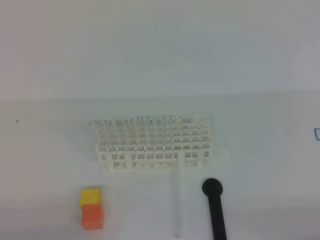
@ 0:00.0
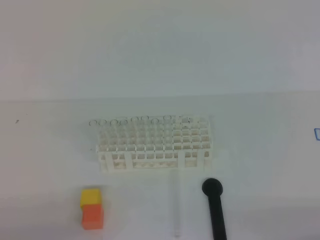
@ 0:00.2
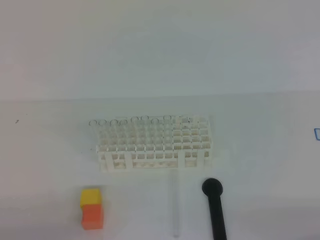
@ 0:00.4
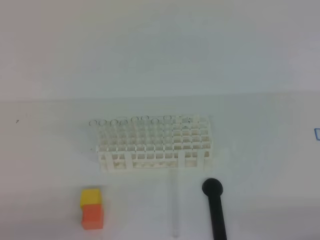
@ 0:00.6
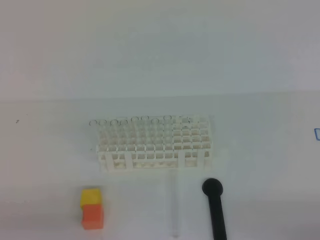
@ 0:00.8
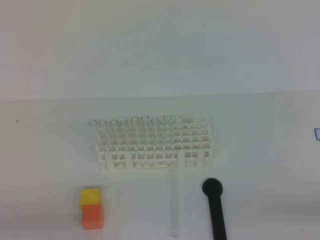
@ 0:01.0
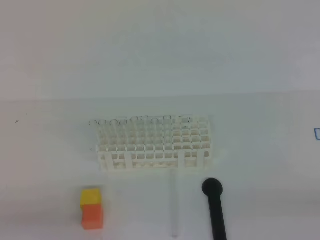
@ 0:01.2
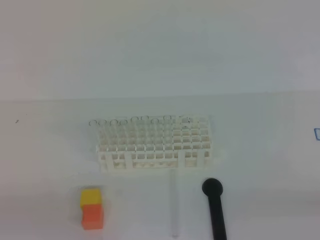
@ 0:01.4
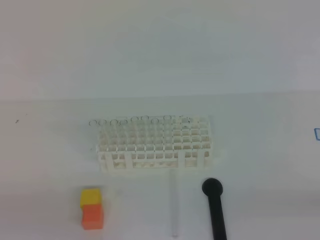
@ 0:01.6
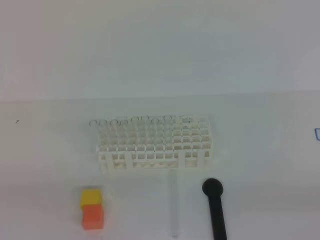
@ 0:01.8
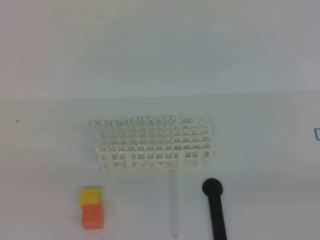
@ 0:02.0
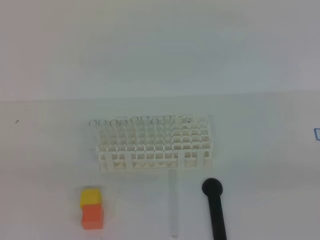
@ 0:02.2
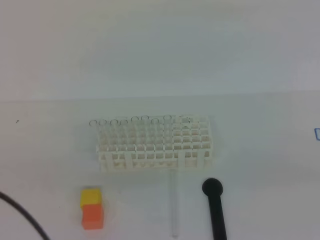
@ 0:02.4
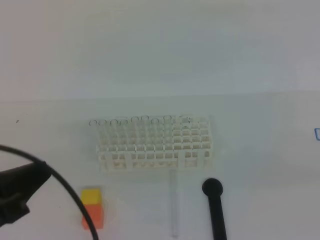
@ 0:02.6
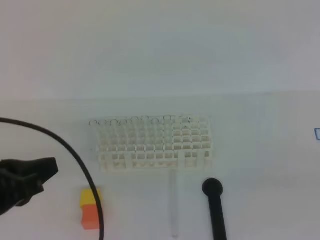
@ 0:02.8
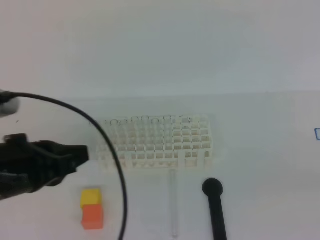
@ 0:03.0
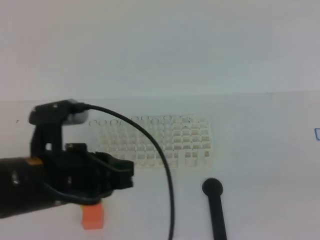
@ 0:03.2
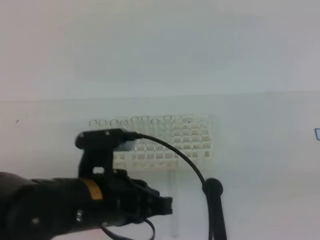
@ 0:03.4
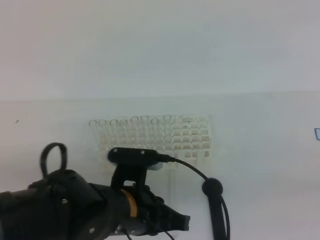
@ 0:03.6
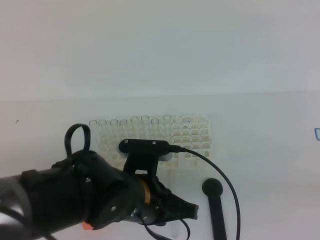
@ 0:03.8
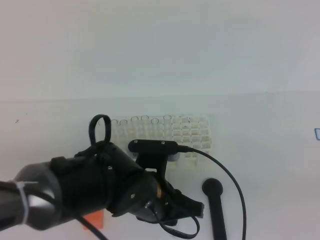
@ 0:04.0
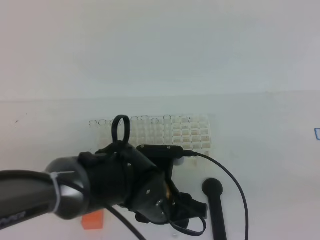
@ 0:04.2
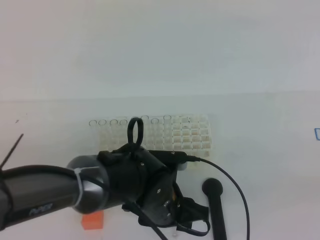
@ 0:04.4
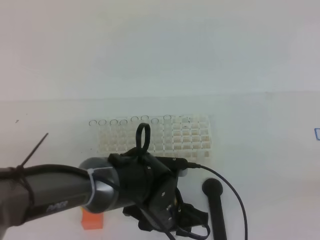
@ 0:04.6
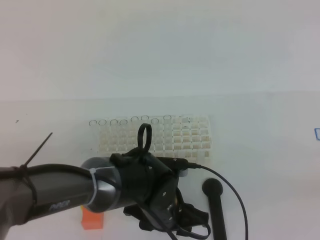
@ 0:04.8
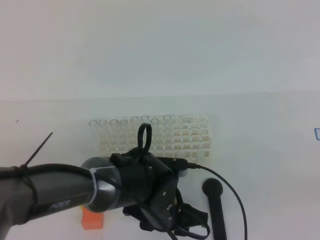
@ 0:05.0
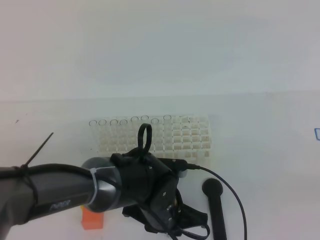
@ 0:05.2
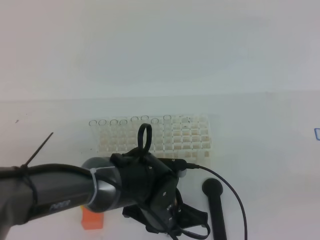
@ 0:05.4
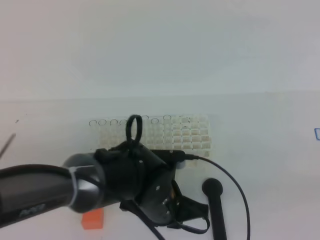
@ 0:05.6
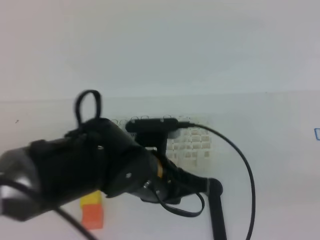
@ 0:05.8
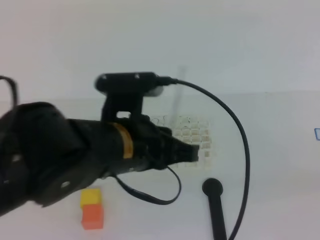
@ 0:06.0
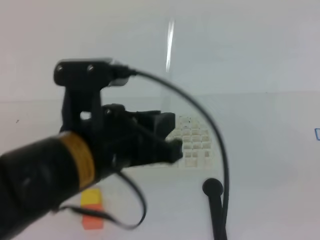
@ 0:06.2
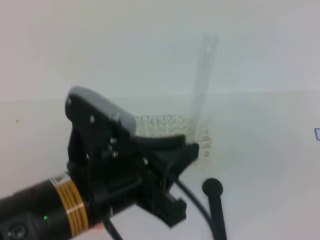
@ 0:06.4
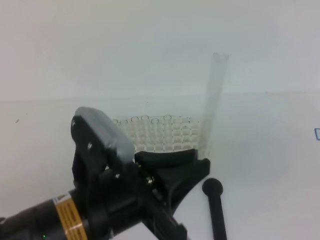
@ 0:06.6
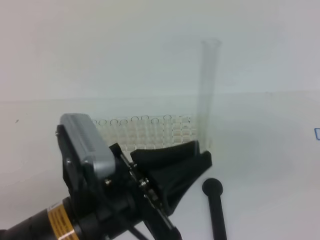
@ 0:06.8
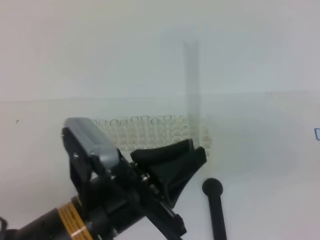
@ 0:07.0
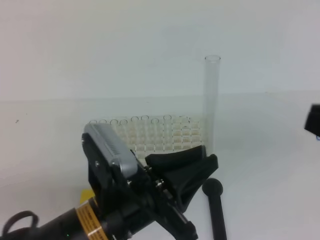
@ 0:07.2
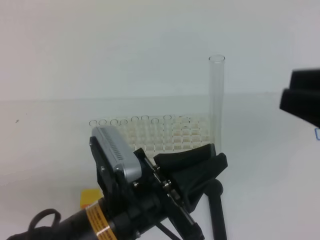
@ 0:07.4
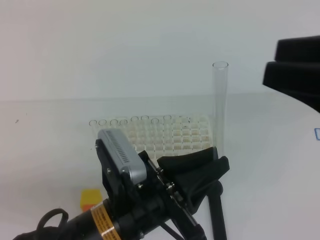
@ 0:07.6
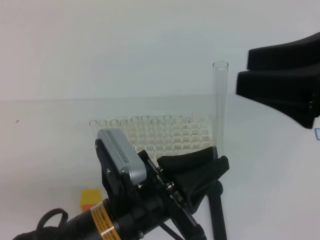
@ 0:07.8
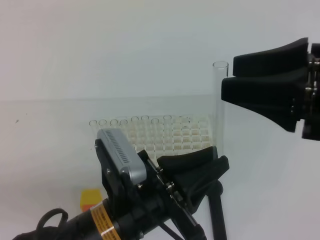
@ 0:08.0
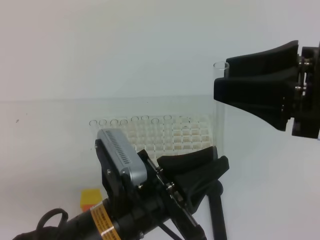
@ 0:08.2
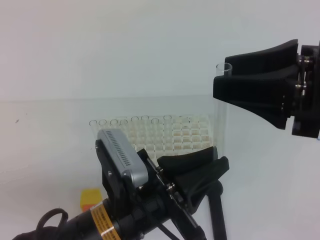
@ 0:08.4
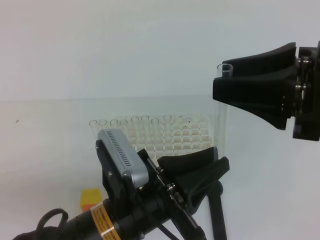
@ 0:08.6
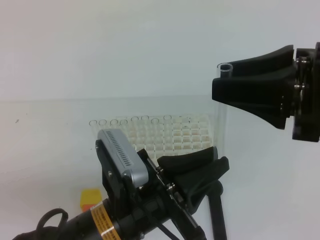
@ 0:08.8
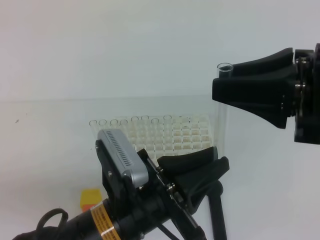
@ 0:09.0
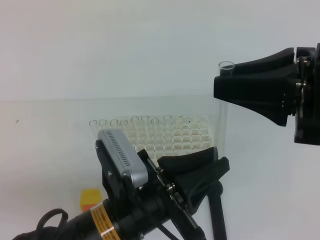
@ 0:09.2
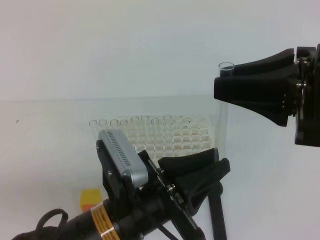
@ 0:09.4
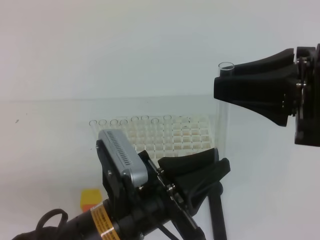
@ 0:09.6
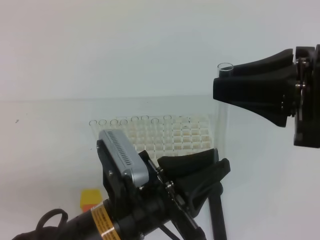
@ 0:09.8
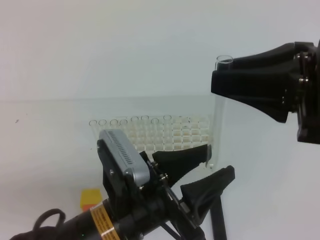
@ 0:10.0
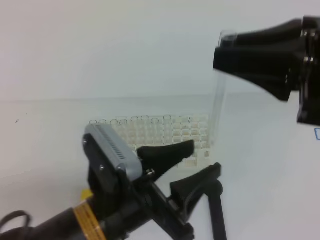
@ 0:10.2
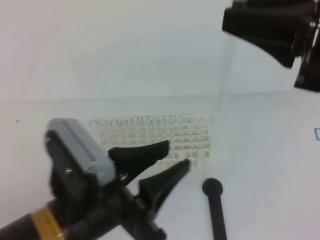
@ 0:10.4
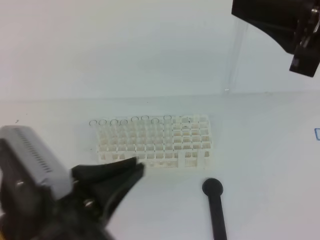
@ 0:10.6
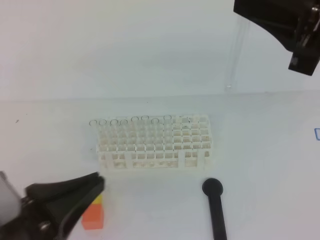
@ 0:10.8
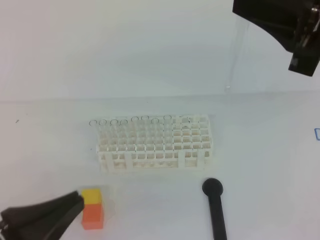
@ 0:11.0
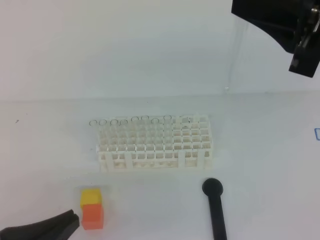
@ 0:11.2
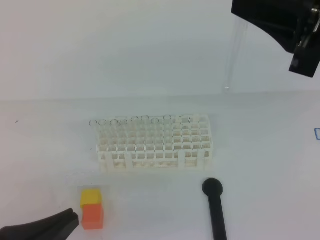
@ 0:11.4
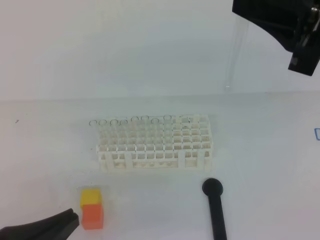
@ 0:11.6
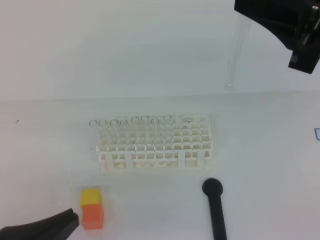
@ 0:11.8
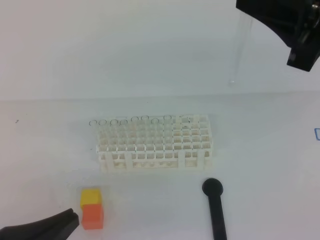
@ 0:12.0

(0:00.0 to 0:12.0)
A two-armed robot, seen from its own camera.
0:01.6 - 0:03.0: The right gripper heads upward, covering approximately 10 cm; the left gripper heads forward, to the right and upward, covering approximately 15 cm.
0:03.0 - 0:04.4: The left gripper is displaced to the right and downward by about 20 cm, and opens up.
0:04.4 - 0:06.0: The left gripper travels upward by about 15 cm, and closes.
0:06.0 - 0:07.6: The left gripper goes some 10 cm backward and downward, while the right gripper heads forward, to the left and upward, covering approximately 15 cm, and opens up.
0:07.6 - 0:09.0: The right gripper ends up about 5 cm from where it was, and closes up.
0:09.0 - 0:10.4: The left gripper shifts by some 5 cm, and opens.
0:10.4 - 0:12.0: The left gripper moves to the left and backward, about 15 cm, and closes up.

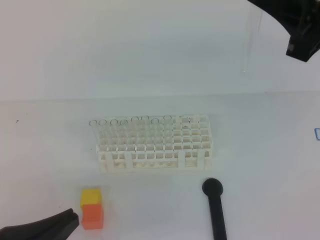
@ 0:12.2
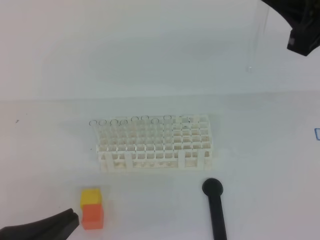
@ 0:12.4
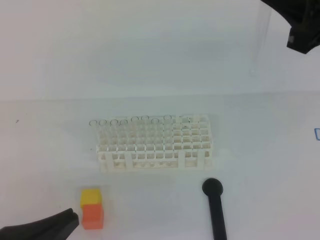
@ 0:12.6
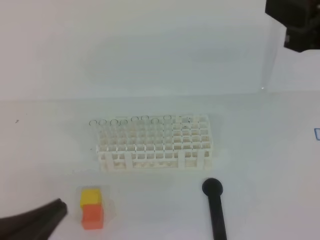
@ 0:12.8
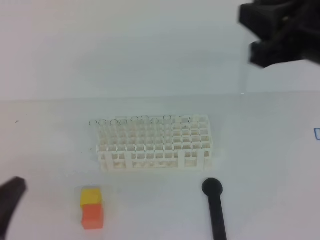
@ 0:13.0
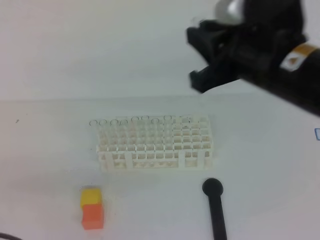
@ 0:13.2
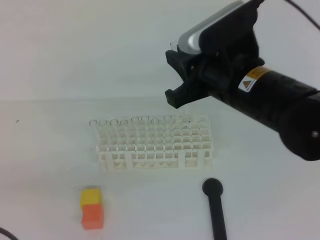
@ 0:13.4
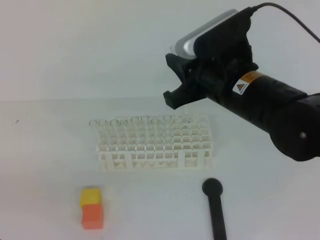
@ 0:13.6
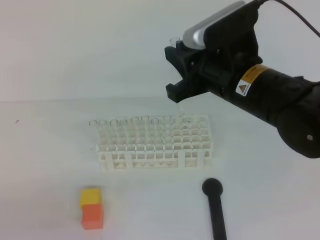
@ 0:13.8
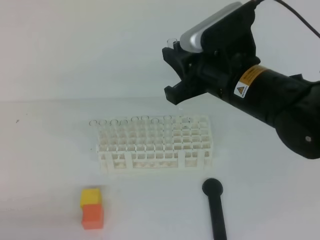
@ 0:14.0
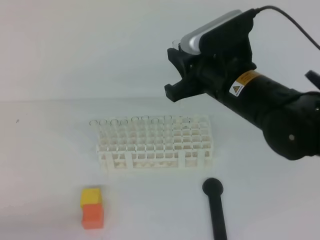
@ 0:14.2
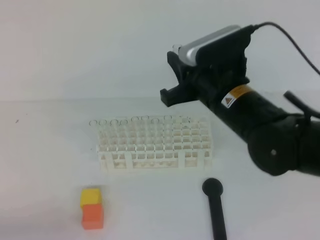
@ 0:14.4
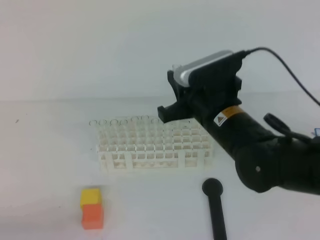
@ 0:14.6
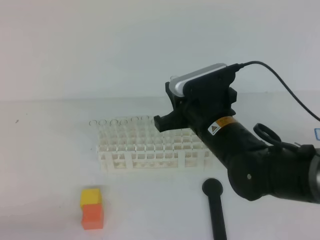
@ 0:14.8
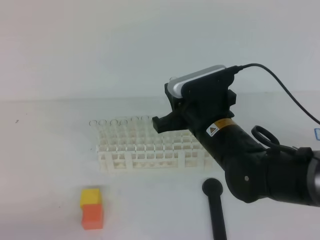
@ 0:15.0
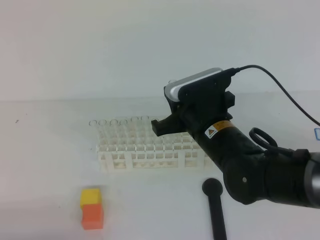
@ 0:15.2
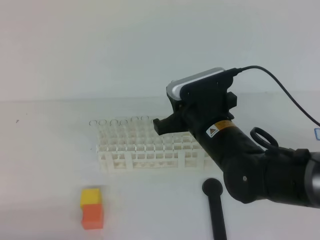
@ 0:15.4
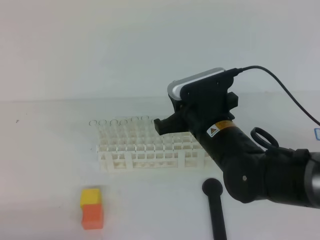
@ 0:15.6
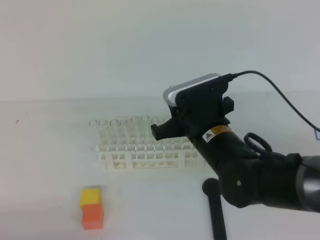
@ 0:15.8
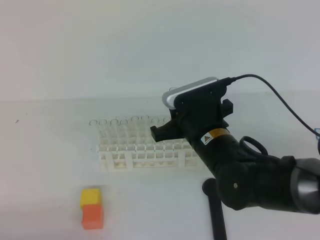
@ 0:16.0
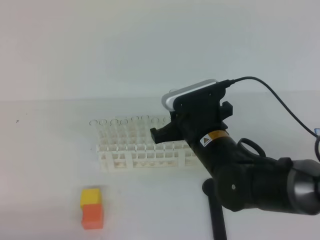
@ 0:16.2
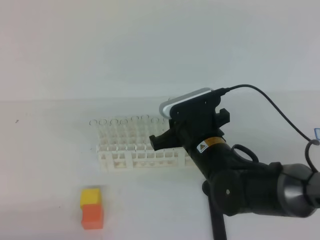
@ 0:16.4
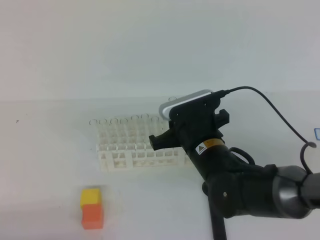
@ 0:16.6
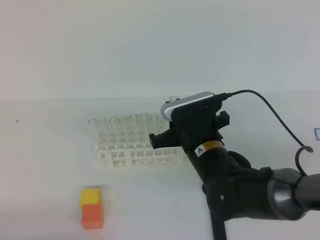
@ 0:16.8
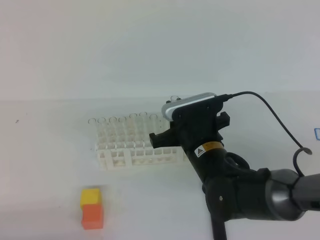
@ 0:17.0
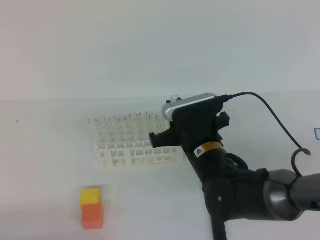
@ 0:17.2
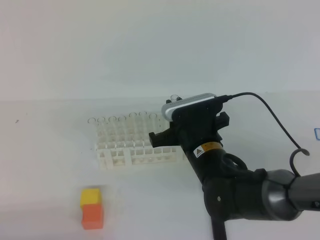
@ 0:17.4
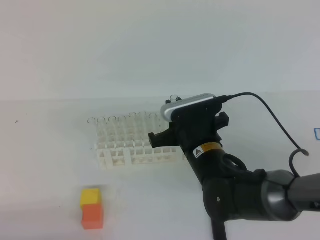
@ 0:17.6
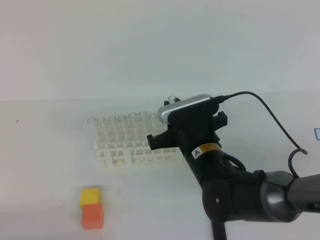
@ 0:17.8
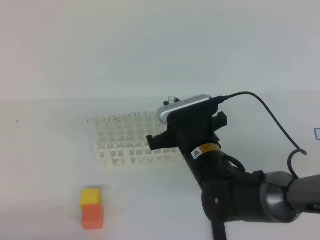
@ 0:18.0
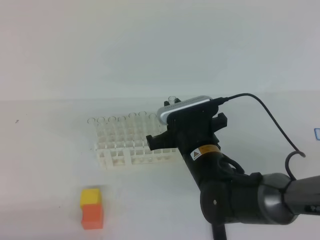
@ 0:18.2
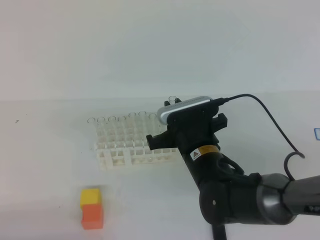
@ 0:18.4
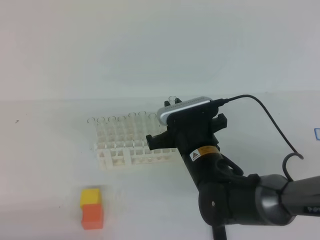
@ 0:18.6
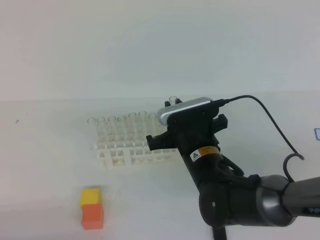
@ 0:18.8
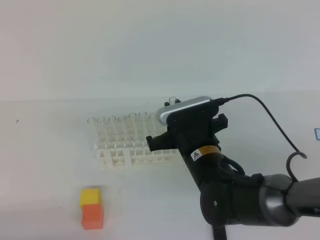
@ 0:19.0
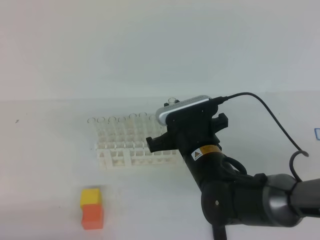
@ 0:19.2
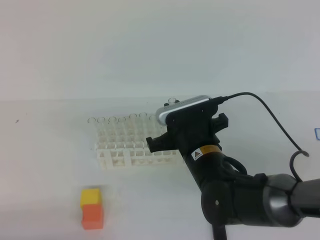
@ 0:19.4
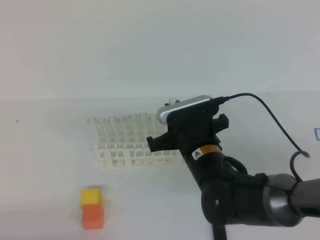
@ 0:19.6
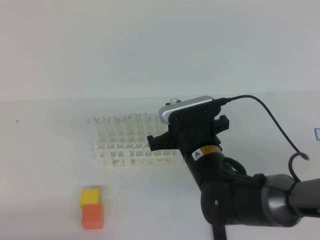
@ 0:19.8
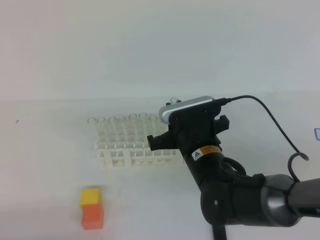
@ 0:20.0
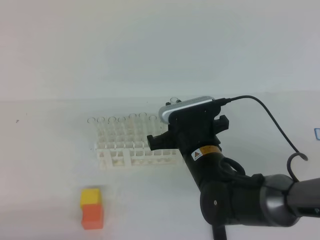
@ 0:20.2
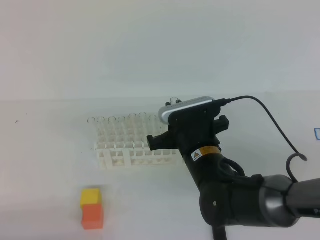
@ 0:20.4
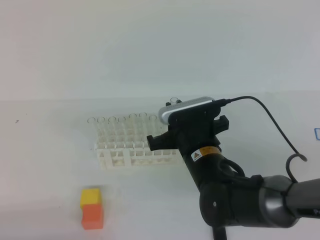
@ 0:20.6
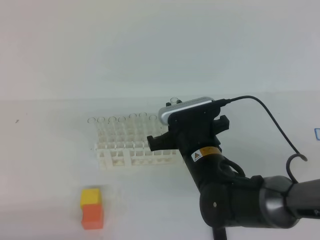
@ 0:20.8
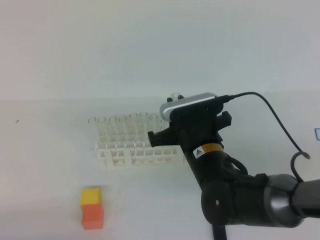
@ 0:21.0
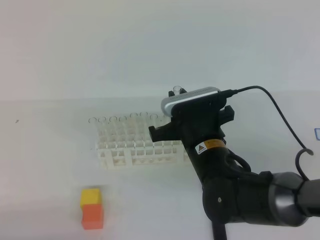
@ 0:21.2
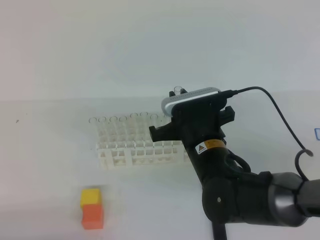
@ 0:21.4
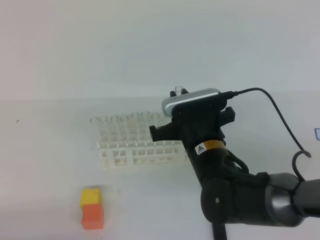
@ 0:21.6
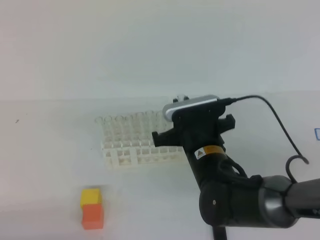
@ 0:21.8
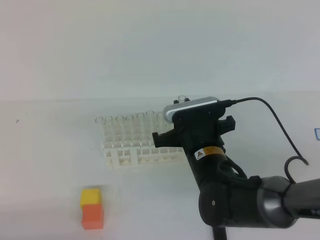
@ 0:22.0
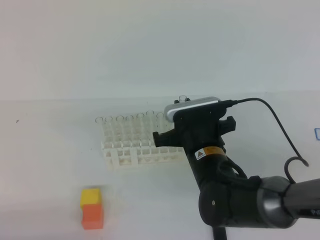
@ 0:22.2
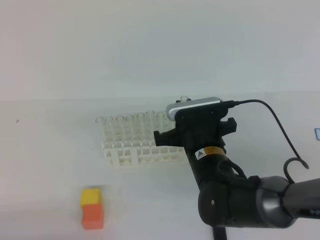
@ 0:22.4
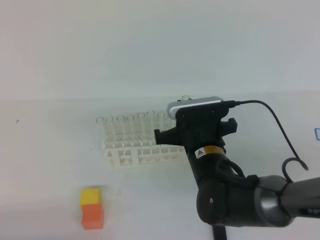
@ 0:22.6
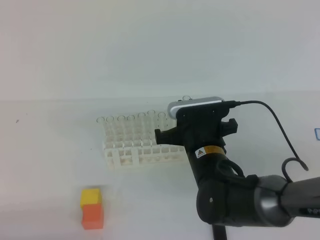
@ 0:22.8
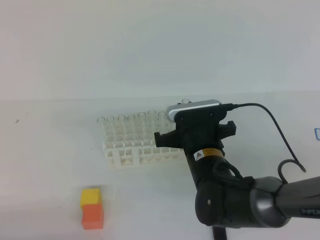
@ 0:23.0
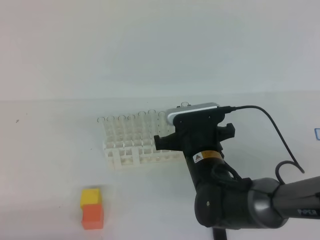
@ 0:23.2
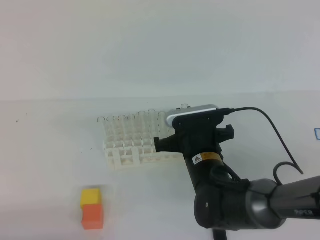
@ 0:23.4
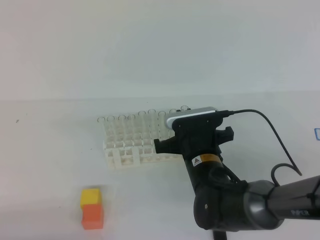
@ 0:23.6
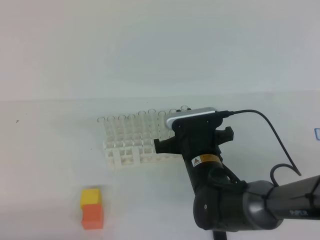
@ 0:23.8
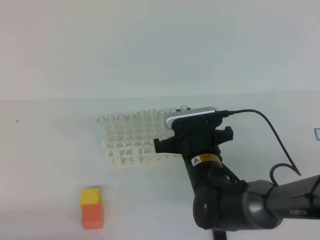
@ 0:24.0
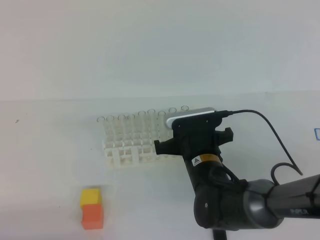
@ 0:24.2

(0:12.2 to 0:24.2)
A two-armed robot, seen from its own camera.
0:12.2 - 0:13.8: The left gripper heads to the left, covering some 5 cm. Meanwhile the right gripper heads to the left, downward and forward, covering approximately 15 cm.
0:13.8 - 0:15.2: The left gripper moves downward, some 5 cm. The right gripper travels downward by roughly 10 cm.
0:15.2 - 0:18.2: The grippers make only small movements.
0:18.2 - 0:19.8: Both grippers stay about where they are.
0:19.8 - 0:24.2: There are only small adjustments of the grippers.
